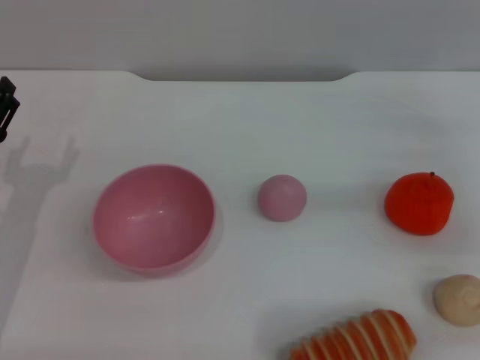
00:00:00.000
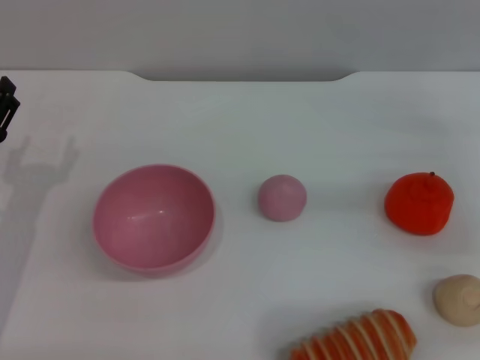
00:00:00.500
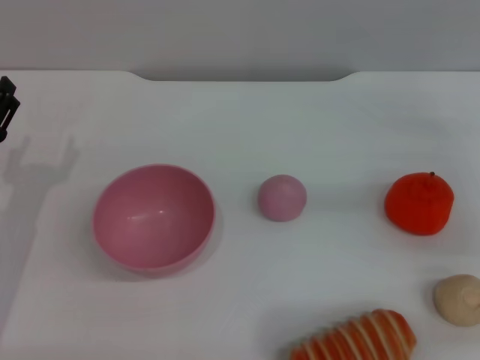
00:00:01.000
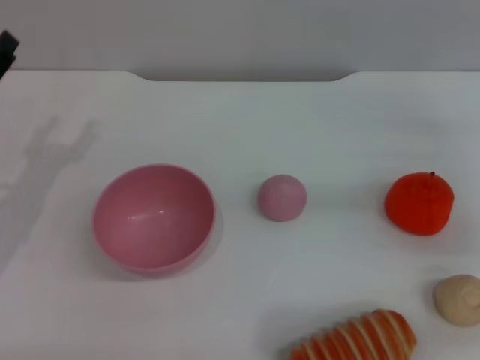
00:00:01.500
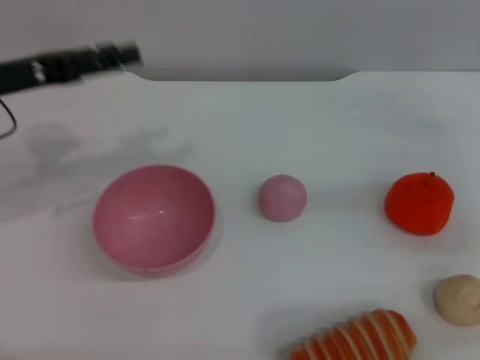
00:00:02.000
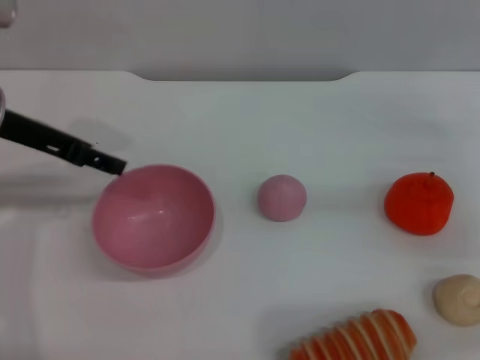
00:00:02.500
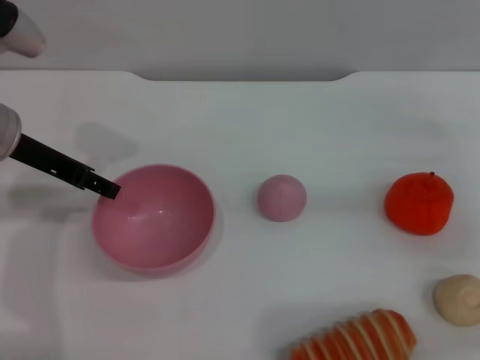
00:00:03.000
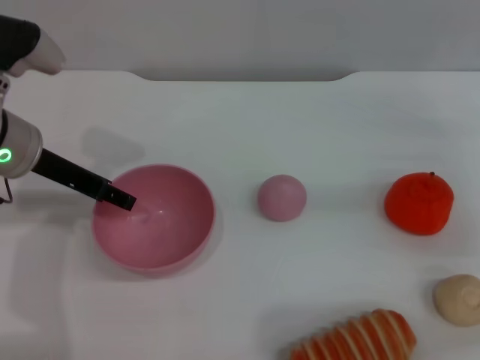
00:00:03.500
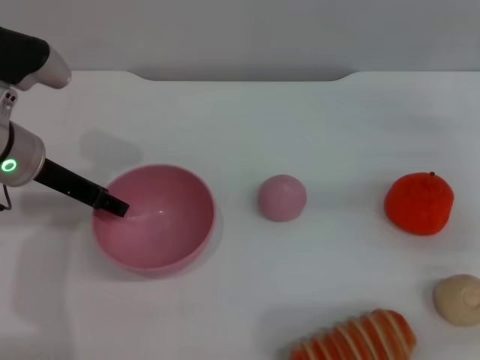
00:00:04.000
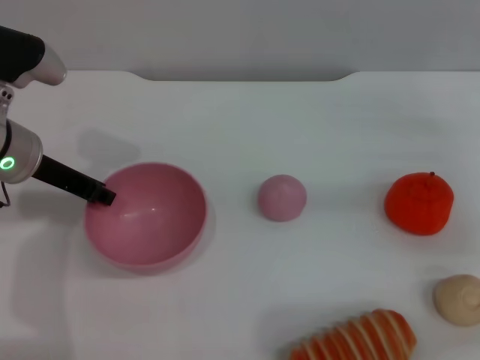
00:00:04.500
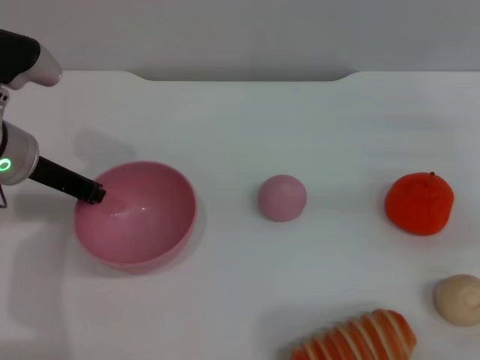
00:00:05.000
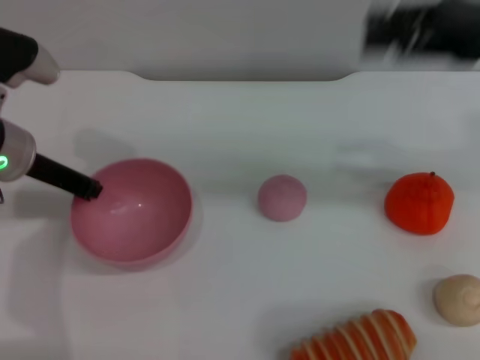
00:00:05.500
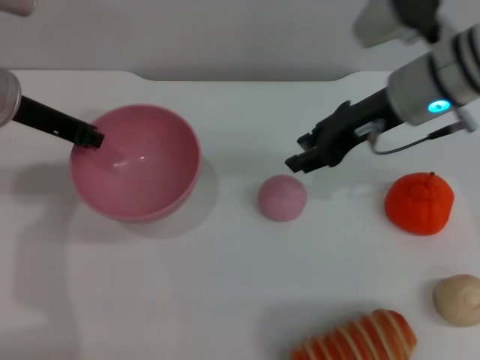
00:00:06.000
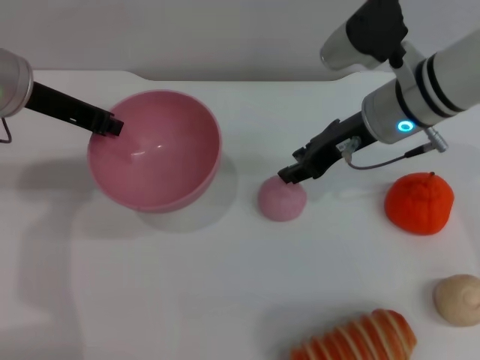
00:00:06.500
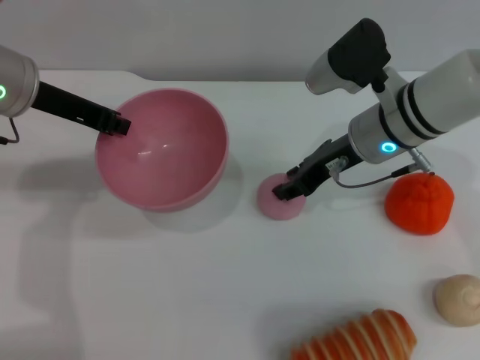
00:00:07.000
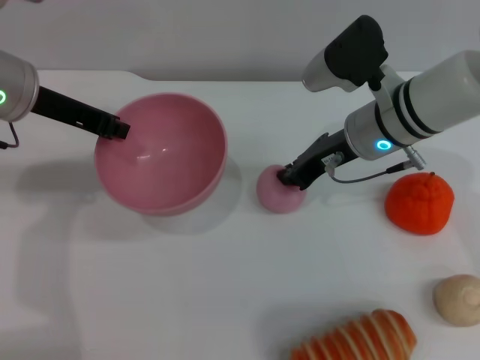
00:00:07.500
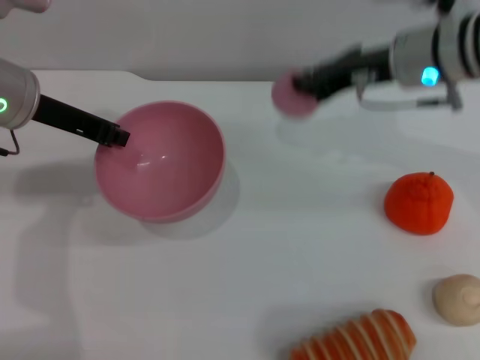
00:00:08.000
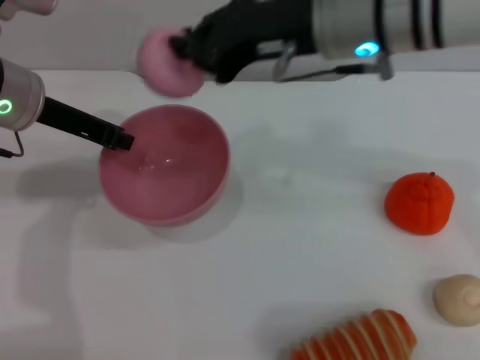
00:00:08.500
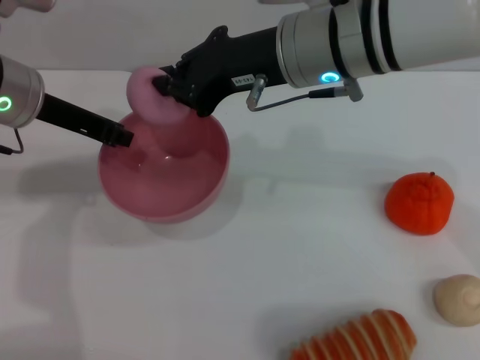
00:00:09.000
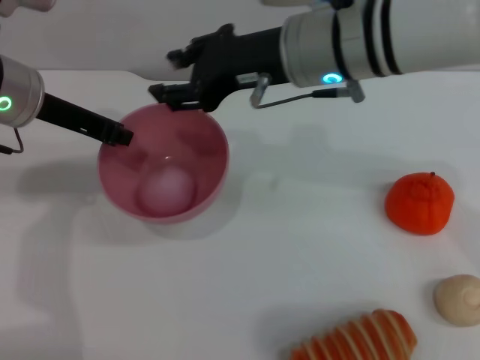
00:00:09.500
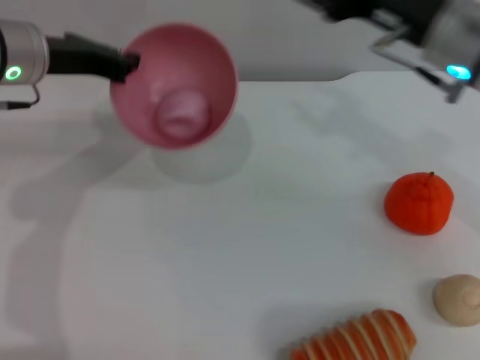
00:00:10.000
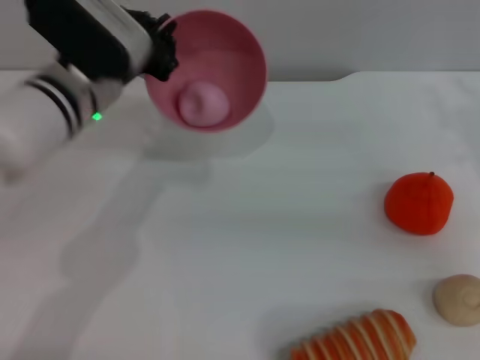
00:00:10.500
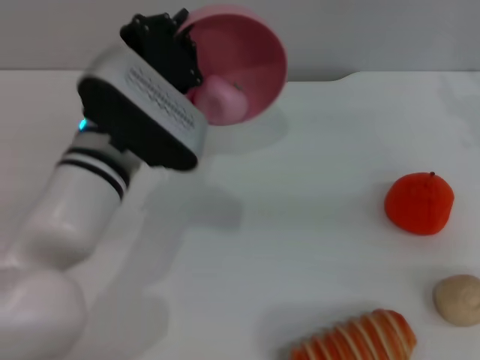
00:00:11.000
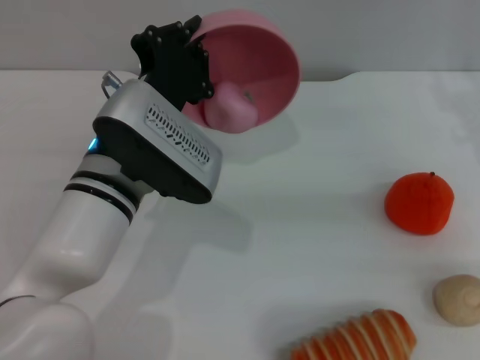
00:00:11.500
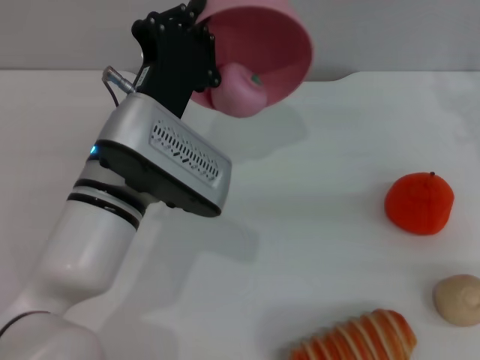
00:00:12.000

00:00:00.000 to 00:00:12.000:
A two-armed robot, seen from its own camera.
Task of the whole recording: put the peach into the pink bowl and pour it out repeatedly.
Step, 00:00:00.000 to 00:00:05.500: Pick up the bowl with the left gripper.
Step, 00:00:06.000 to 00:00:07.500: Pick up the peach with the right gripper.
Step, 00:00:08.000 to 00:00:09.500: Place the peach into the bowl.
00:00:00.000 to 00:00:02.000: The left gripper heads upward and forward, covering about 15 cm.
00:00:02.000 to 00:00:04.000: The left gripper is displaced to the right by approximately 5 cm.
00:00:04.000 to 00:00:06.000: The right gripper moves to the left and upward, approximately 20 cm. The left gripper closes up.
00:00:06.000 to 00:00:08.000: The right gripper closes.
00:00:08.000 to 00:00:10.000: The right gripper reaches some 10 cm to the left, then returns, and opens up.
00:00:10.000 to 00:00:12.000: The left gripper goes approximately 20 cm to the right, backward and downward. The right gripper moves to the right, some 10 cm.

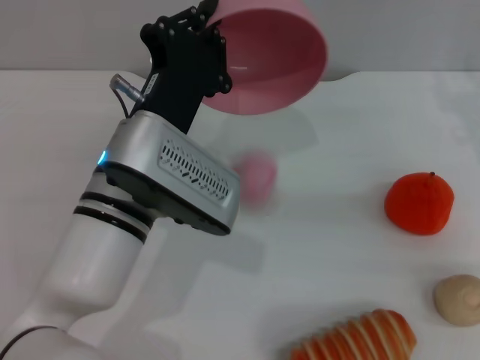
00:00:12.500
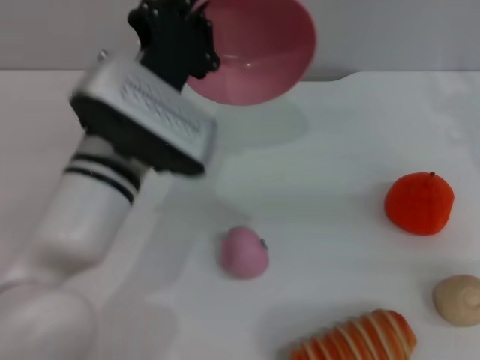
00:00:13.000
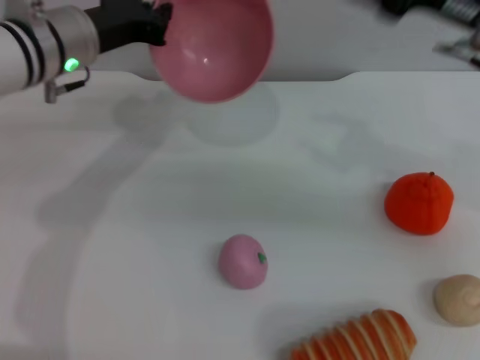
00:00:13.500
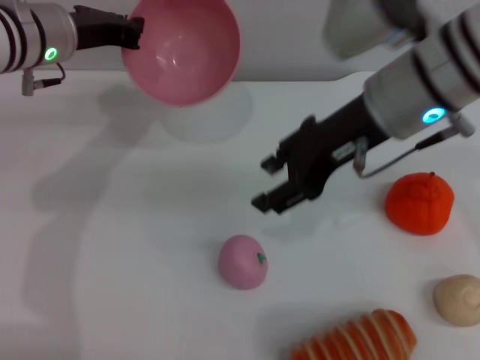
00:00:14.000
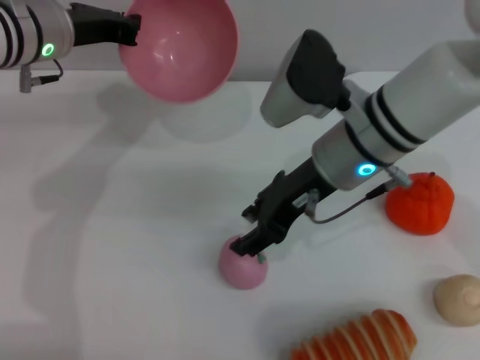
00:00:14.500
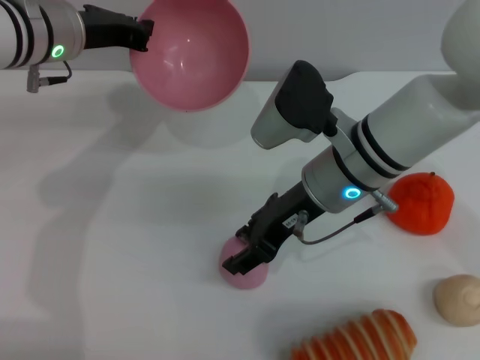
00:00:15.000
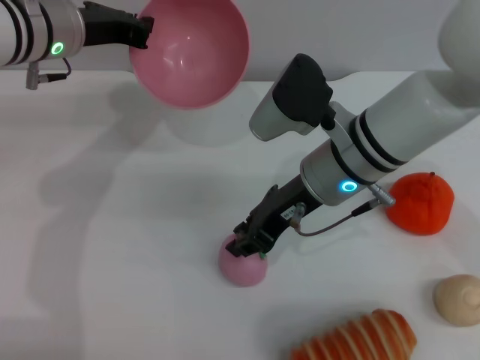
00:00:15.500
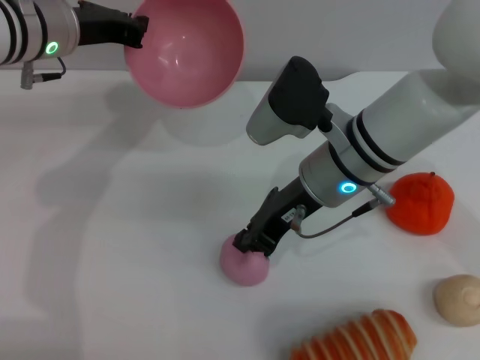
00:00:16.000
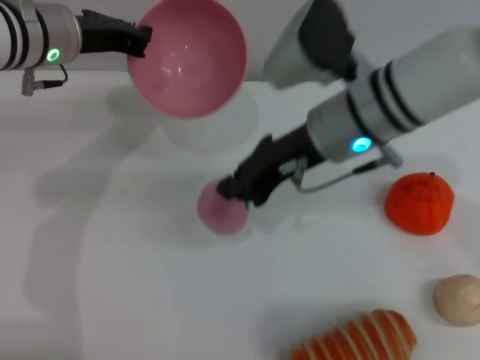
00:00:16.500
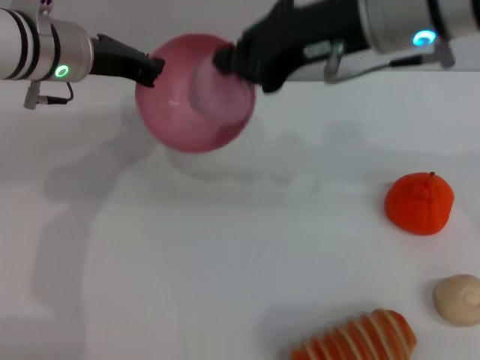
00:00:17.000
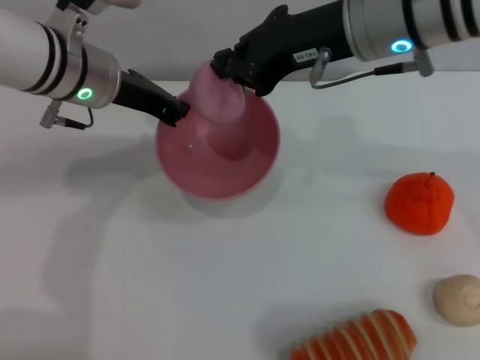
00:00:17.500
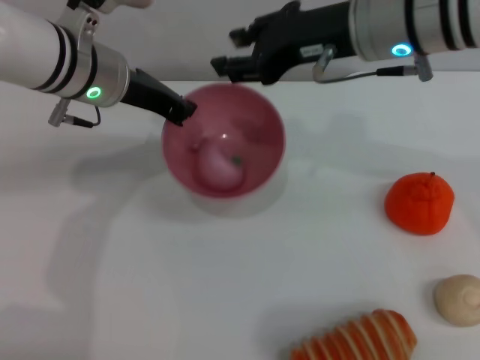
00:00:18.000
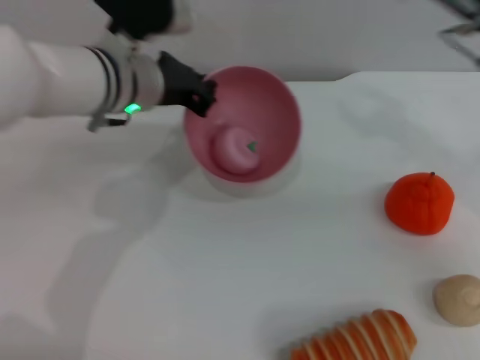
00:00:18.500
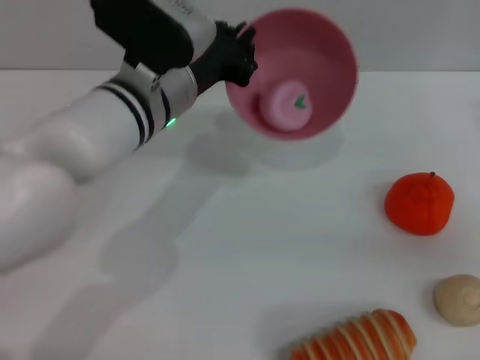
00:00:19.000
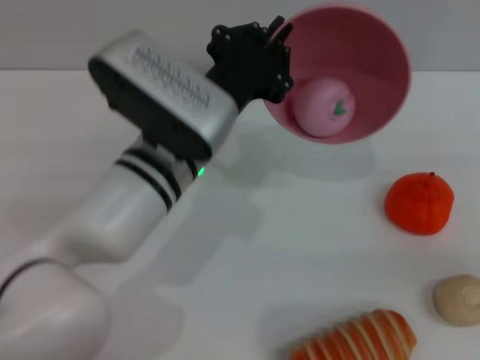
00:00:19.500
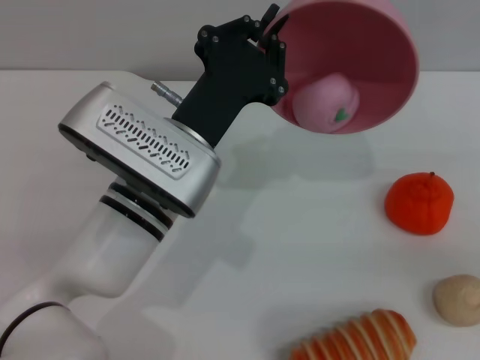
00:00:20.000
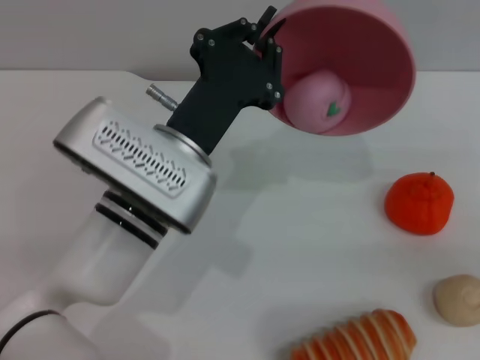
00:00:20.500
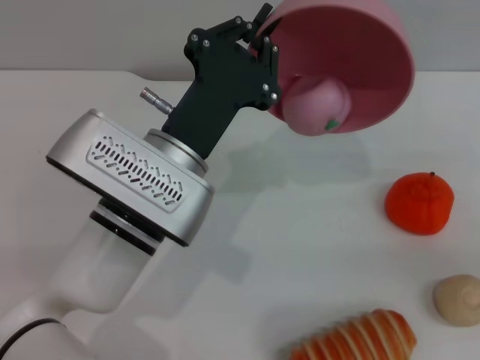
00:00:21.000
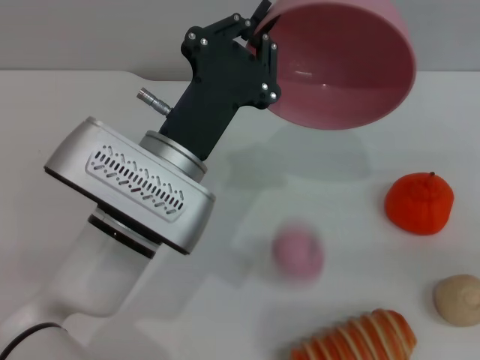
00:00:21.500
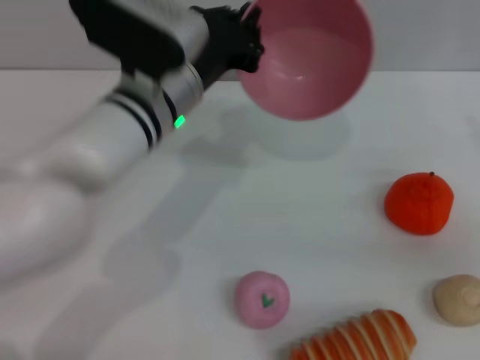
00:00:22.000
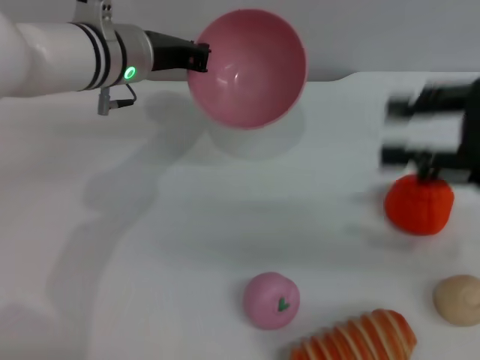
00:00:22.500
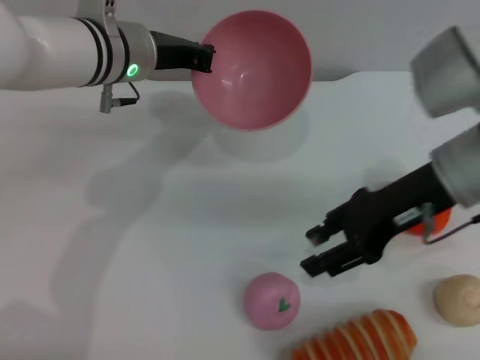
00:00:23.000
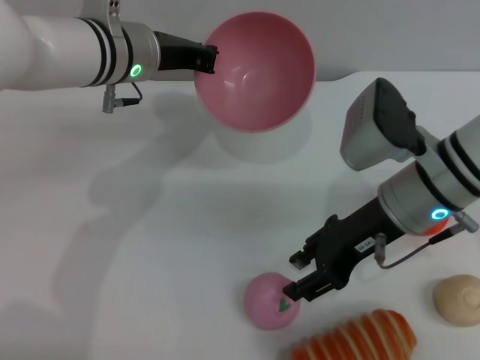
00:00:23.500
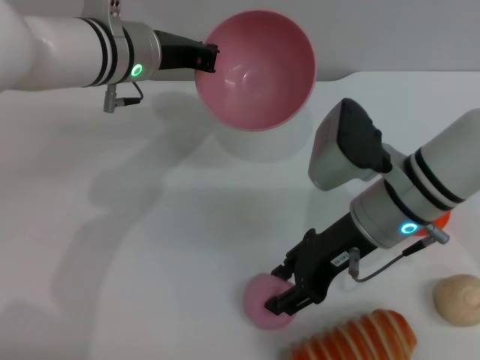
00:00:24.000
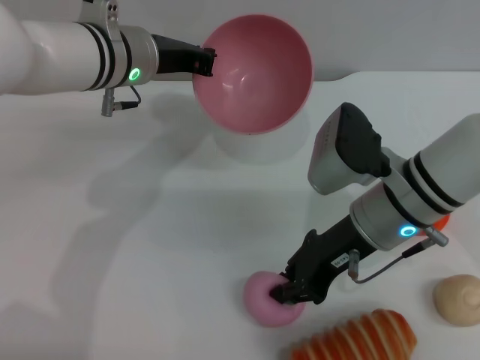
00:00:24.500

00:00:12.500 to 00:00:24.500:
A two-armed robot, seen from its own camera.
Task of the whole recording: put the peach into the pink bowl and pour it out repeatedly.
Step, 00:00:13.000 to 00:00:16.000: Pick up the peach with the right gripper.
Step, 00:00:17.000 to 00:00:17.500: Place the peach into the bowl.
Step, 00:00:18.500 to 00:00:22.500: Pour the peach out of bowl.
00:00:12.500 to 00:00:14.500: The left gripper moves forward and to the left, about 20 cm. Meanwhile the right gripper moves to the left, about 20 cm.
00:00:14.500 to 00:00:16.500: The right gripper closes.
00:00:16.500 to 00:00:18.500: The left gripper moves to the right, about 10 cm. The right gripper heads to the right, covering some 15 cm, and opens.
00:00:18.500 to 00:00:20.500: The left gripper moves backward, roughly 10 cm, while the right gripper travels to the right and backward by approximately 15 cm.
00:00:20.500 to 00:00:22.500: The left gripper moves forward, roughly 15 cm, while the right gripper shifts approximately 15 cm to the left and upward.
00:00:22.500 to 00:00:24.500: The right gripper is displaced to the left and downward by about 20 cm.

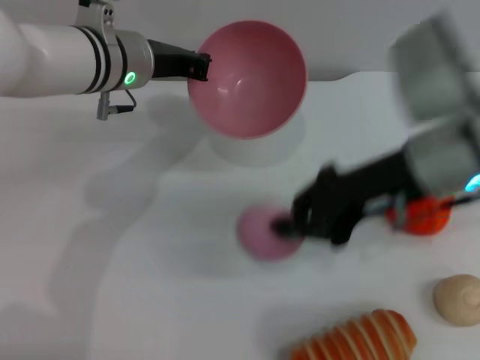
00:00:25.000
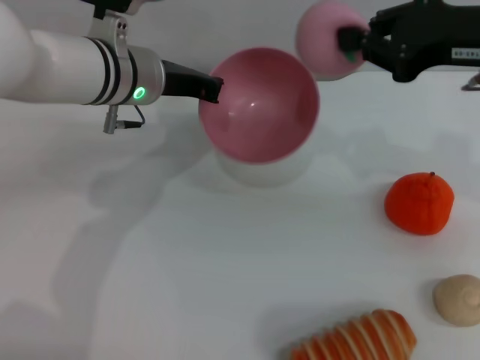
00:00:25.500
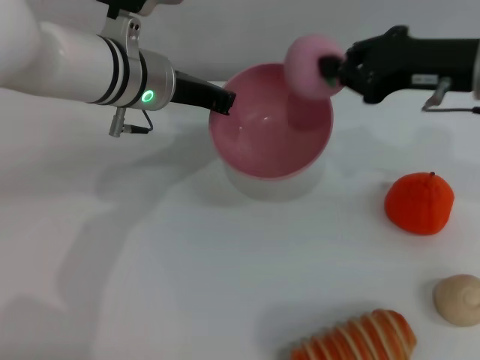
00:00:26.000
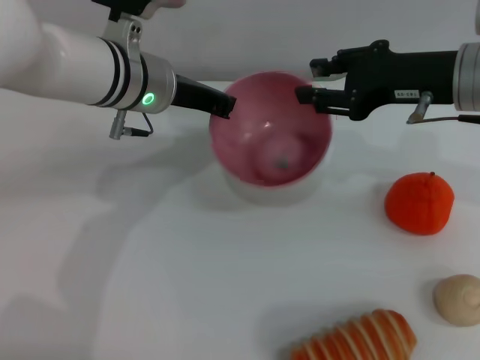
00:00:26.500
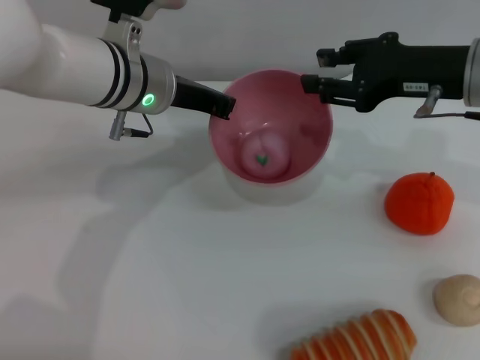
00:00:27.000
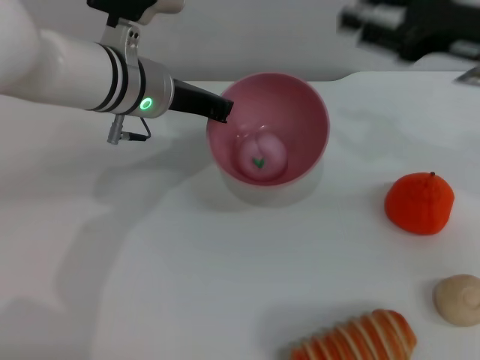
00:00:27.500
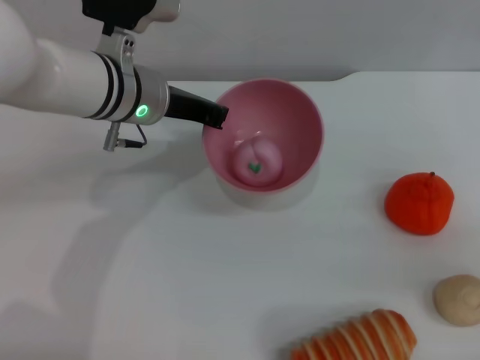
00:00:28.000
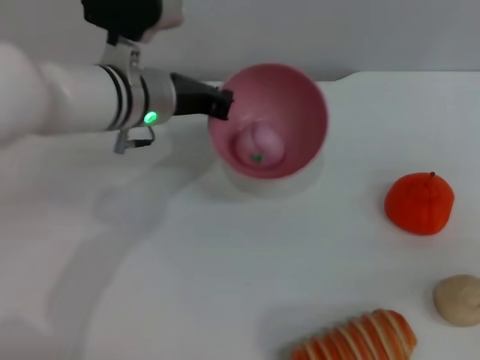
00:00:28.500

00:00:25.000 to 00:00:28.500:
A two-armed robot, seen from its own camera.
Task of the whole recording: put the peach into the pink bowl and pour it out repeatedly.
Step, 00:00:25.500 to 00:00:27.000: Place the peach into the bowl.
00:00:25.000 to 00:00:27.000: The right gripper moves to the right, roughly 5 cm, and opens up.
00:00:27.000 to 00:00:28.500: The right gripper goes some 15 cm to the right and backward.
